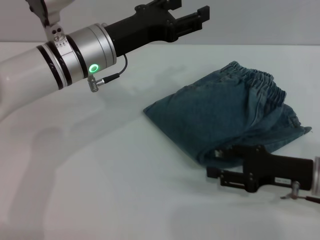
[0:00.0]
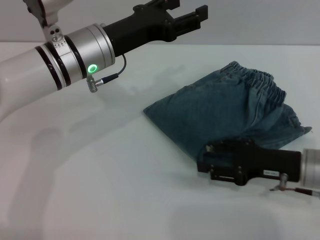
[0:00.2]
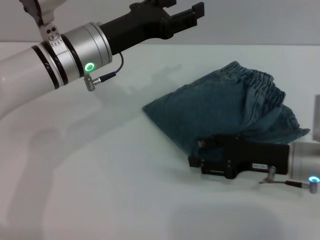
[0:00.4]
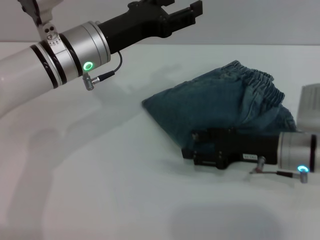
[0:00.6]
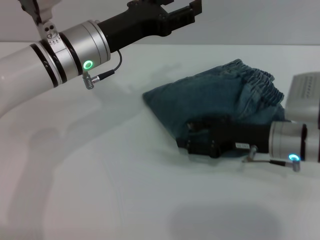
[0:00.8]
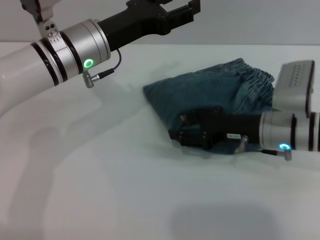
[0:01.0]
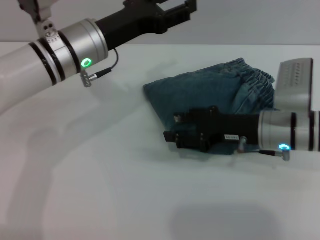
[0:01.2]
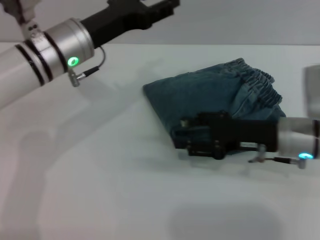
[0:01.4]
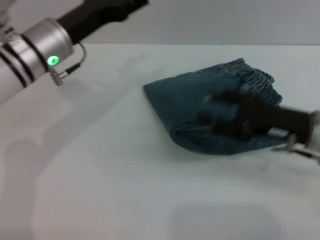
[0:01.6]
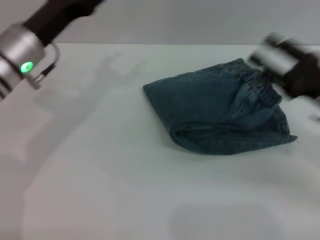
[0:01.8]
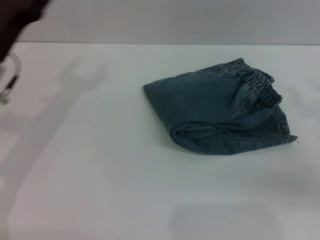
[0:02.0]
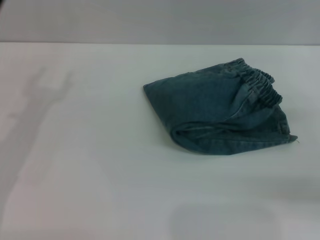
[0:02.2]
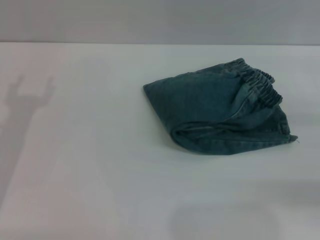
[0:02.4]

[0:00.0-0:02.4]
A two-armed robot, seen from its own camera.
0:00.0 to 0:01.2: The right gripper shifts roughly 10 cm to the left and forward.
0:01.2 to 0:02.4: The left gripper goes some 20 cm to the left and backward, while the right gripper is displaced to the right and backward by approximately 20 cm.

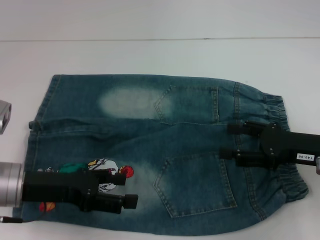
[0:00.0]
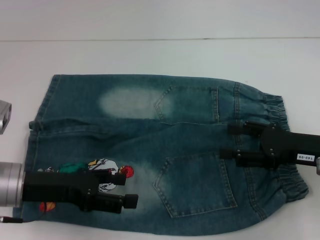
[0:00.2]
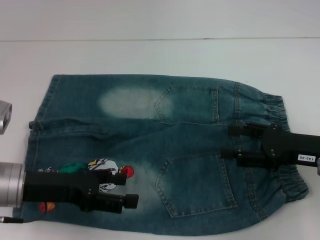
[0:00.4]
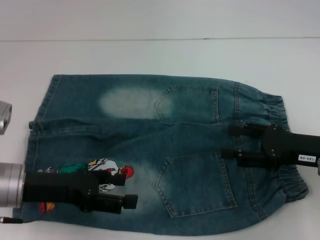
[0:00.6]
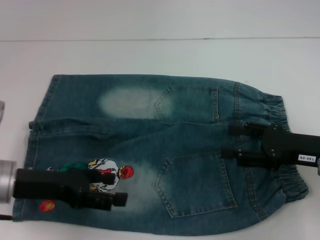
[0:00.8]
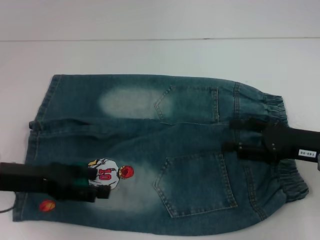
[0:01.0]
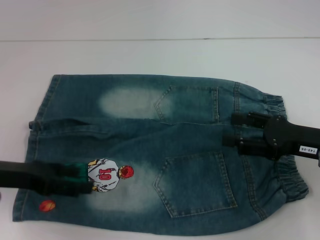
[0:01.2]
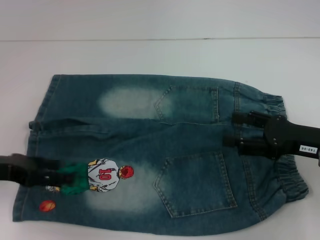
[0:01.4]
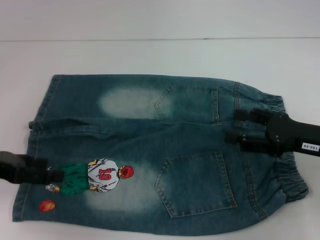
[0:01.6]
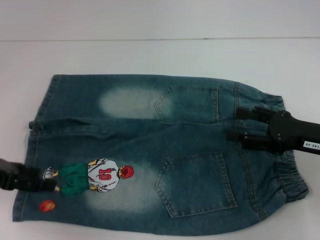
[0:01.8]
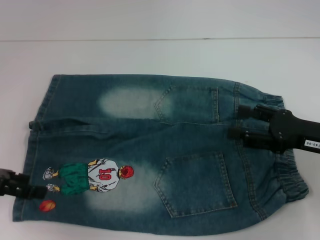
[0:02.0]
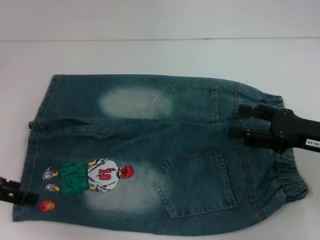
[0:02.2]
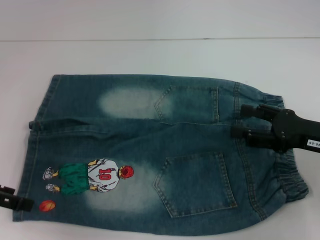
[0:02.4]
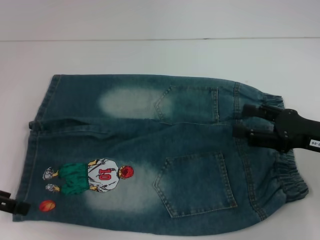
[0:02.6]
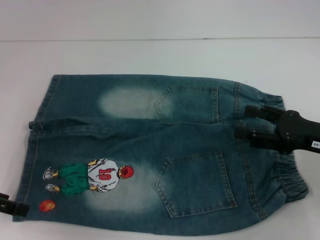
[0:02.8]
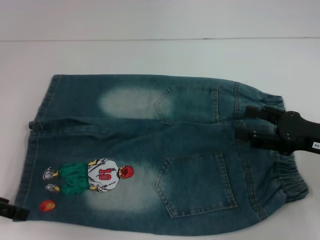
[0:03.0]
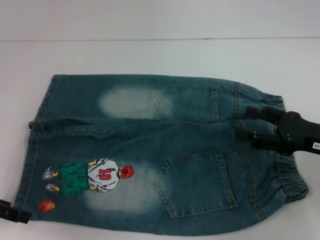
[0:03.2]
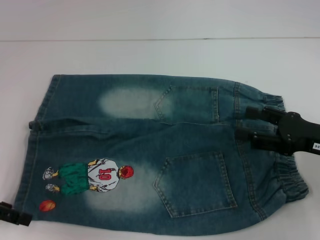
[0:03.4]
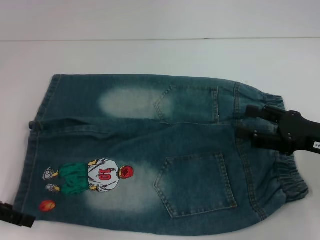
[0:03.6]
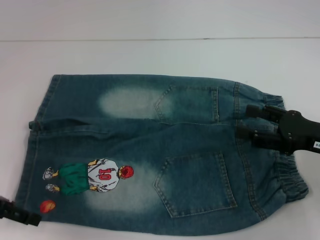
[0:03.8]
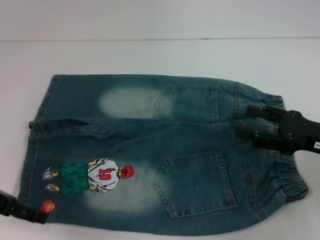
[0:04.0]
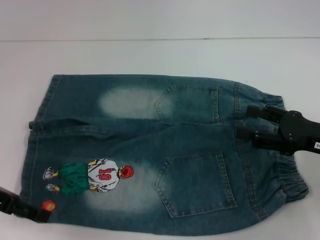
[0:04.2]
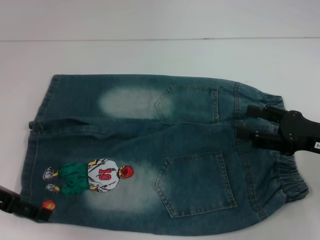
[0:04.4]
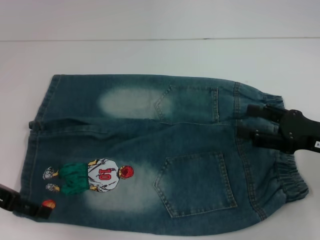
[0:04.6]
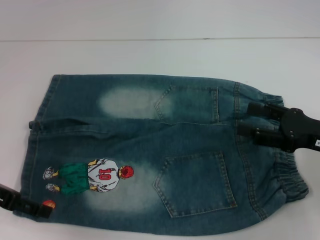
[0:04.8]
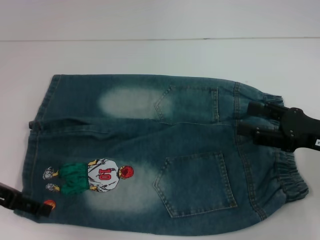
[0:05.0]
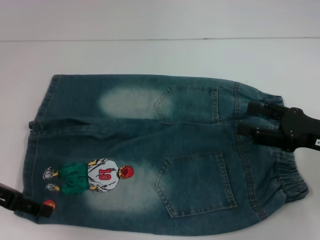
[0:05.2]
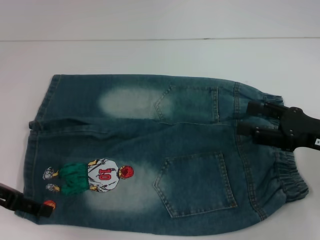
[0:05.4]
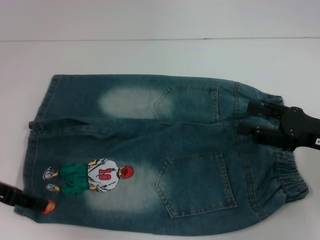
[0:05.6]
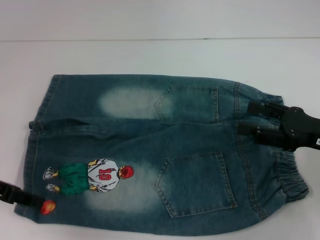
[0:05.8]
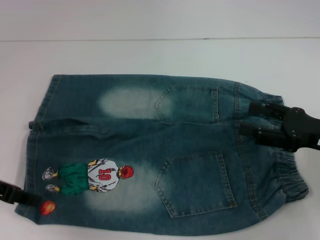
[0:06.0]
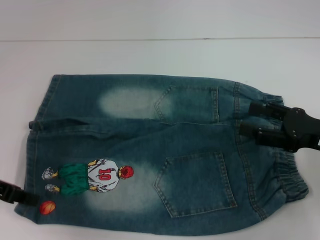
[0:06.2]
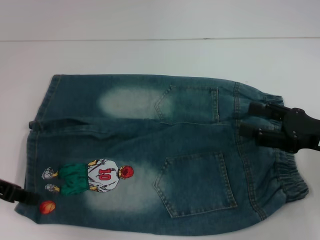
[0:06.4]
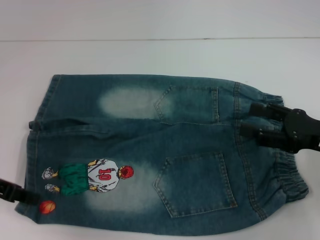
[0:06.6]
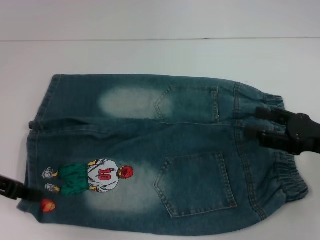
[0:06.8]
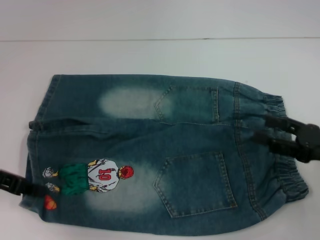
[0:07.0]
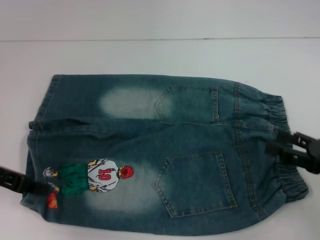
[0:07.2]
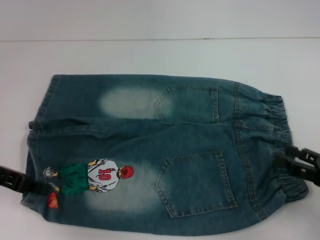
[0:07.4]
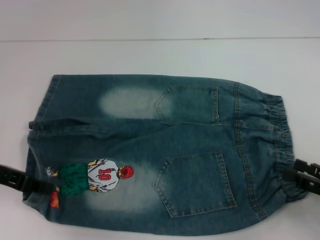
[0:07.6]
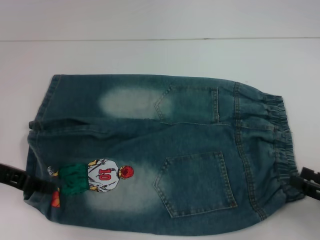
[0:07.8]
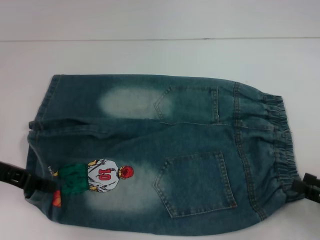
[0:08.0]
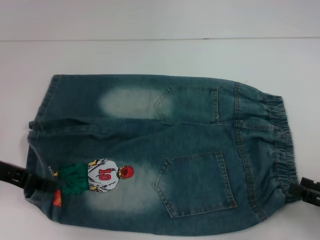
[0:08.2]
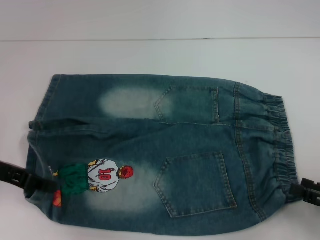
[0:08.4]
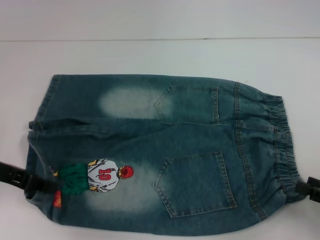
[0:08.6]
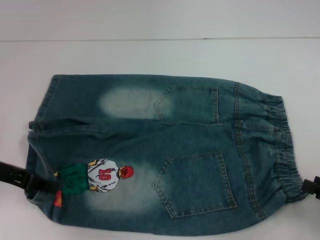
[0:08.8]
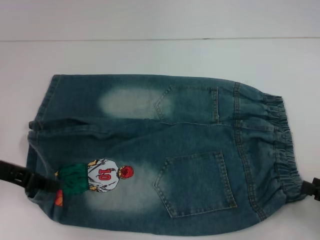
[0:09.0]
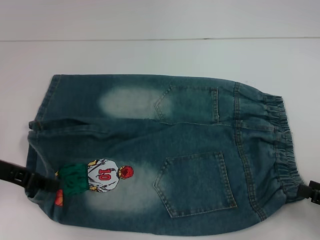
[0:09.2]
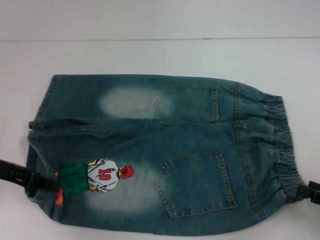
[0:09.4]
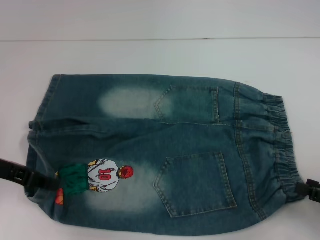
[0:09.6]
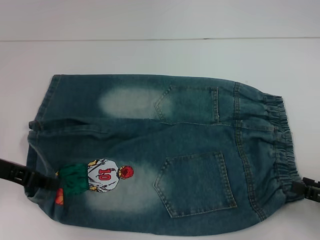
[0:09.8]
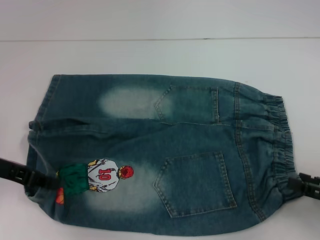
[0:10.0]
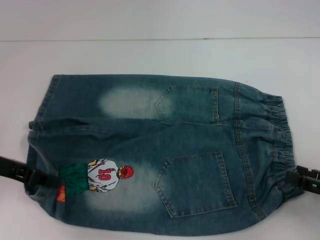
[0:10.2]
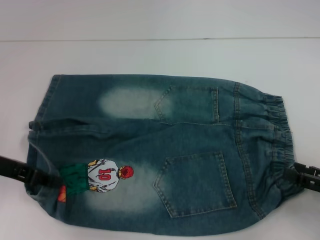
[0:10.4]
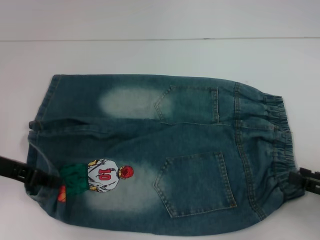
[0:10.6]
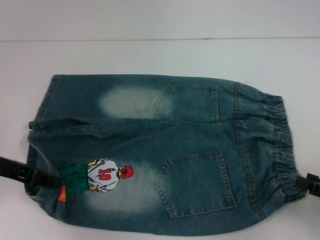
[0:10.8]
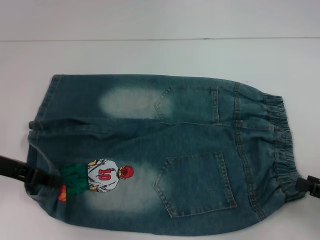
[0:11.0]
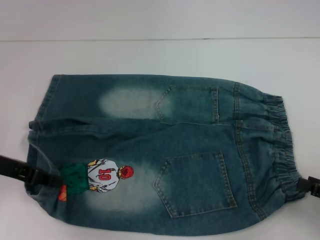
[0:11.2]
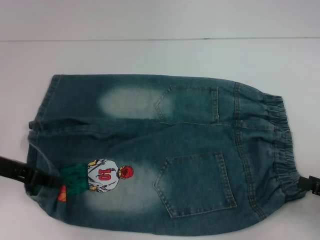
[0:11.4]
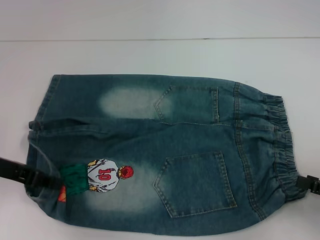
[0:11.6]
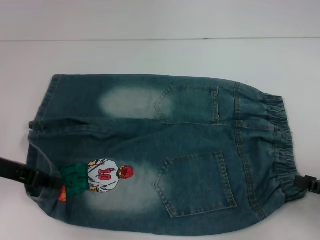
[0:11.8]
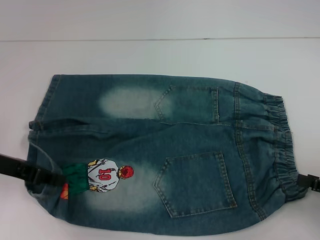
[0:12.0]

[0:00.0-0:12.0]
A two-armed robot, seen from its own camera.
Step, 0:00.0 to 0:06.8: Grab the lower left pant leg with your left hand.
0:00.0 to 0:01.6: The left gripper goes approximately 10 cm to the left.
0:03.0 to 0:04.4: The grippers make only small movements.
0:04.4 to 0:06.0: The left gripper closes its fingers.
0:06.0 to 0:07.6: The right gripper shifts approximately 10 cm backward and to the right.
0:07.6 to 0:12.0: The grippers stay close to where they were, moving slightly.

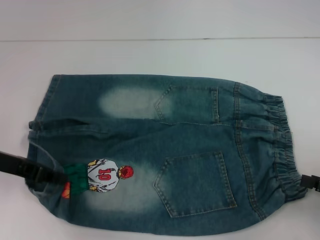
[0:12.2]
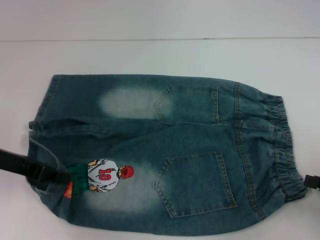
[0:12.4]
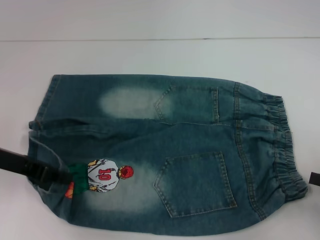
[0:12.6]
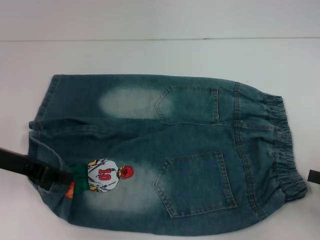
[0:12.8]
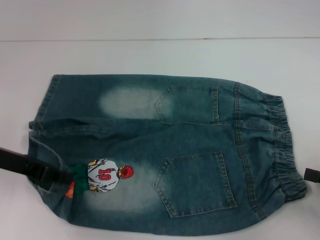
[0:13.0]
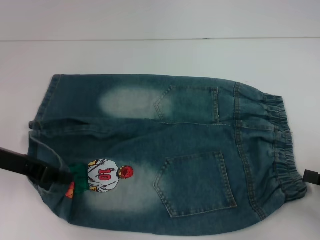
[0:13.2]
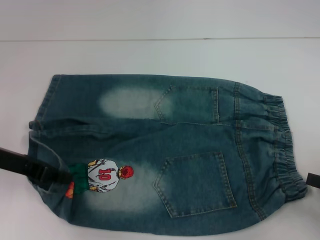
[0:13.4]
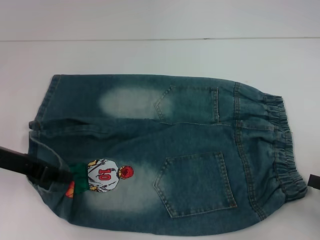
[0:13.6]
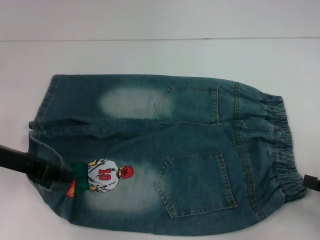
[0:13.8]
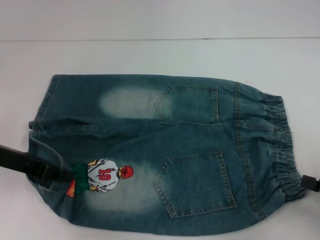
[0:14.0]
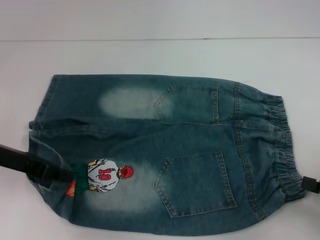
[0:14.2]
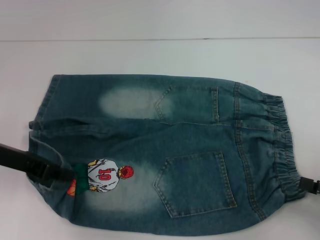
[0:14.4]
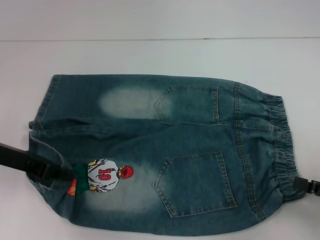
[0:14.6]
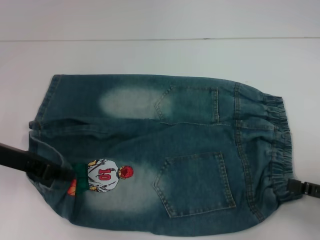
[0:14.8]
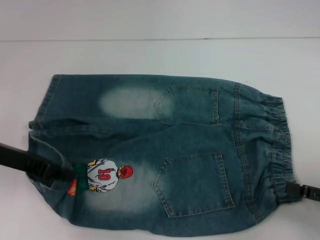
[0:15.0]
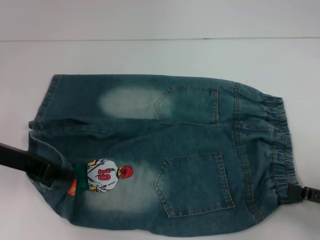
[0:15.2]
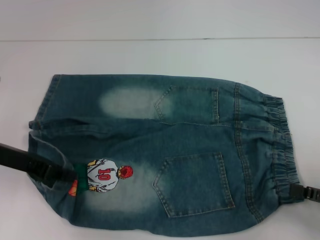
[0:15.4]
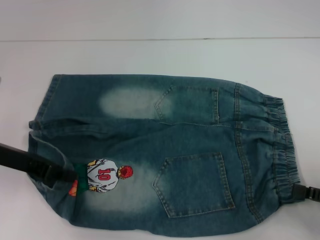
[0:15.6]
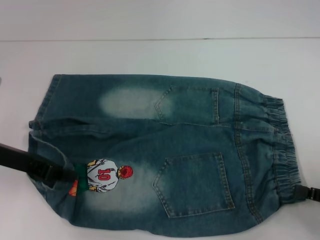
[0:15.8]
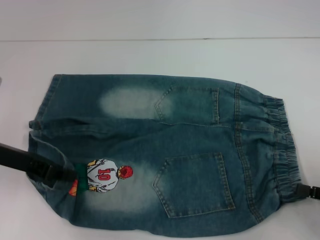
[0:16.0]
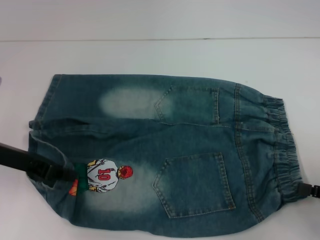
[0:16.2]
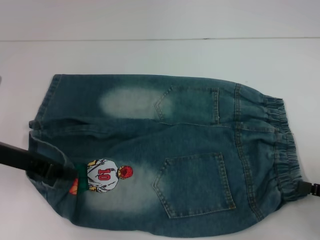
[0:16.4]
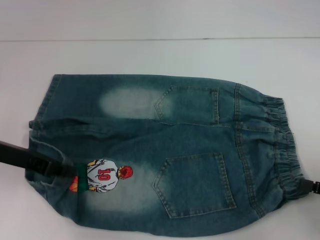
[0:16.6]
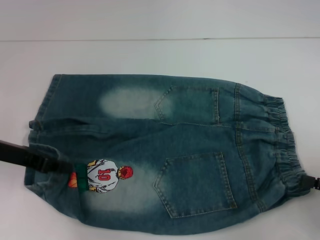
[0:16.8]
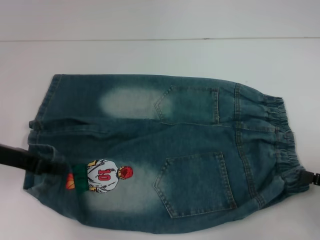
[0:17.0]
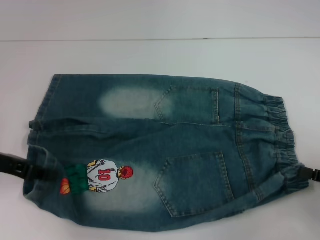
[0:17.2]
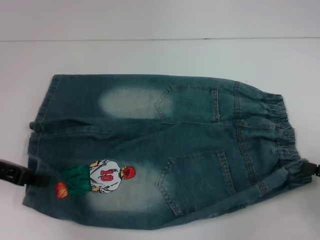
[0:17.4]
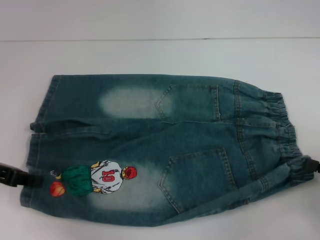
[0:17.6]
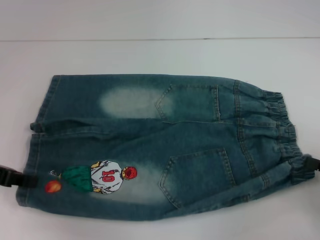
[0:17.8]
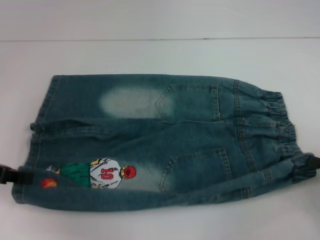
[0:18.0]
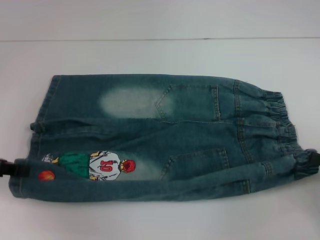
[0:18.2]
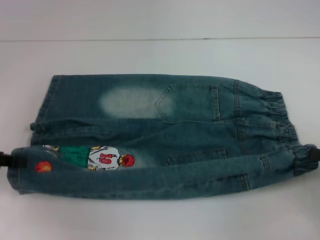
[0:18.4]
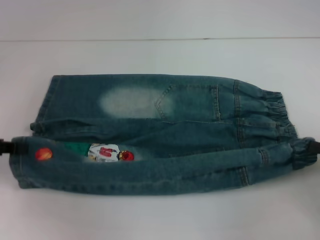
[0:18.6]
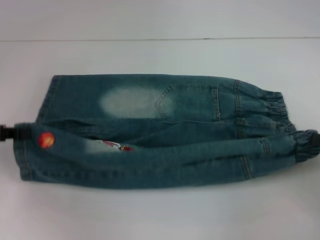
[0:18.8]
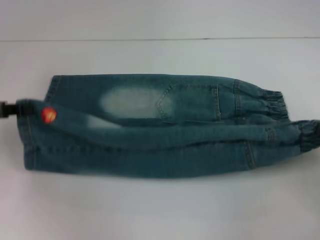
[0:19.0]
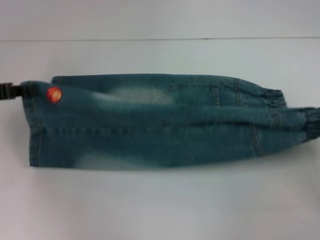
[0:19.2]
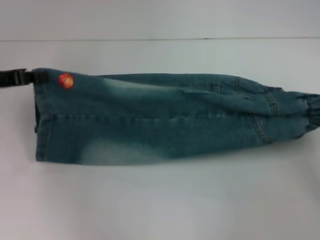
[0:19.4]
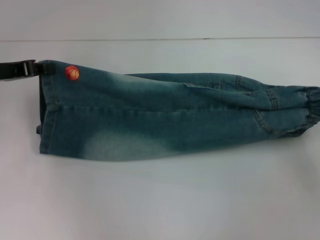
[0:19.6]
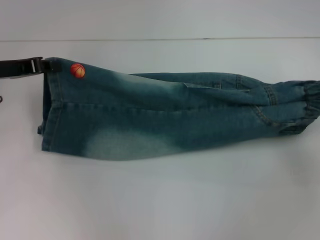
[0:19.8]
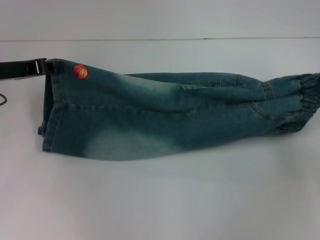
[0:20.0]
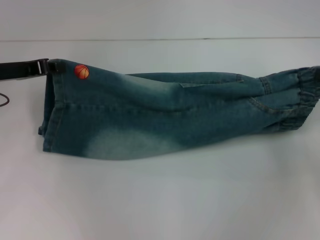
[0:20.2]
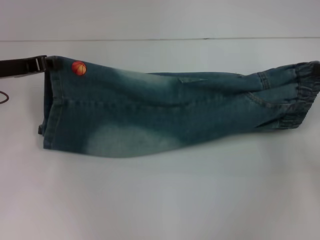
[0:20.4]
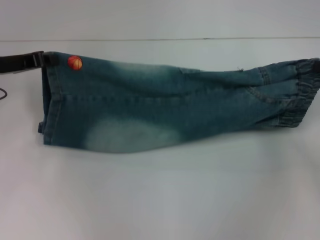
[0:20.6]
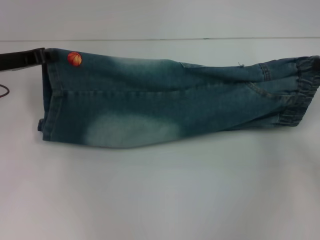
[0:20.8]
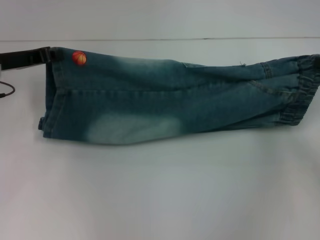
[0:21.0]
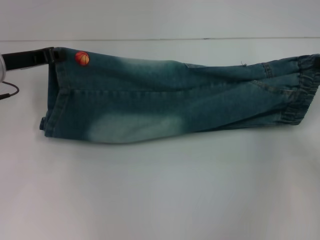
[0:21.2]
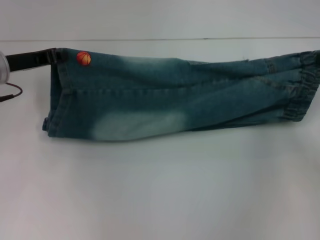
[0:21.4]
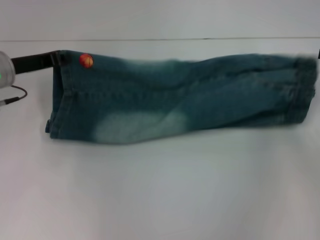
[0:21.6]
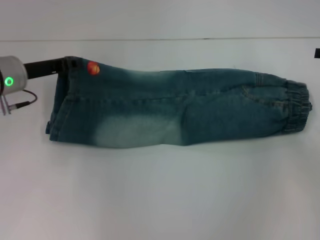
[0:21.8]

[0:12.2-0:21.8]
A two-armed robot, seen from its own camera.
Step, 0:12.2 to 0:16.6: Hold the lower right waistband with your right hand.
0:12.2 to 0:15.4: The grippers make only small movements.
0:15.4 to 0:17.0: The right gripper closes up.
0:17.0 to 0:18.6: The left gripper travels to the left by roughly 5 cm.
0:18.6 to 0:20.2: The right gripper shifts some 15 cm forward and upward, while the left gripper moves forward and to the right, approximately 10 cm.
0:20.2 to 0:21.8: The left gripper moves some 5 cm.
